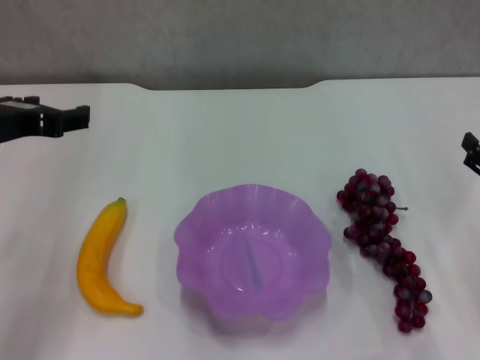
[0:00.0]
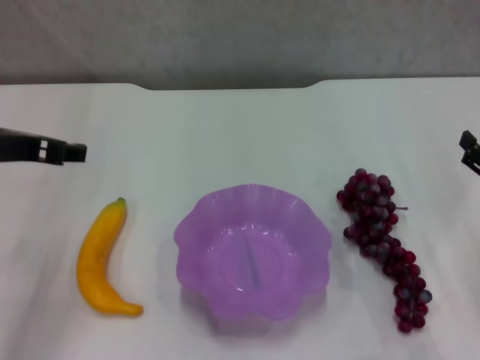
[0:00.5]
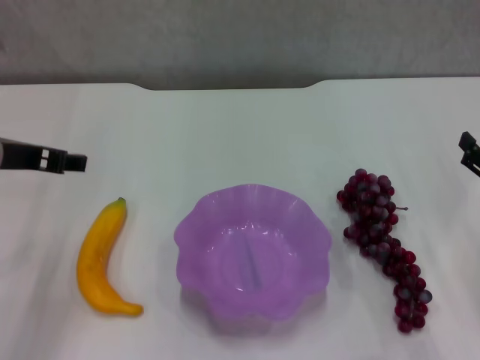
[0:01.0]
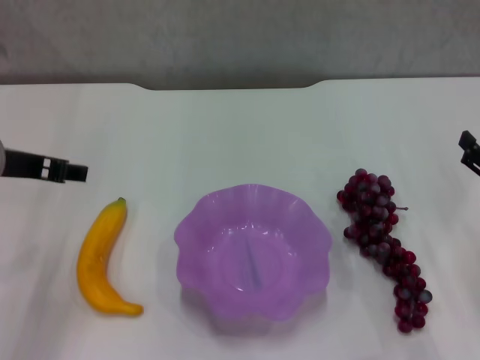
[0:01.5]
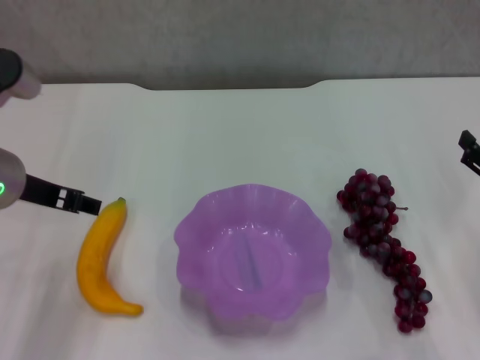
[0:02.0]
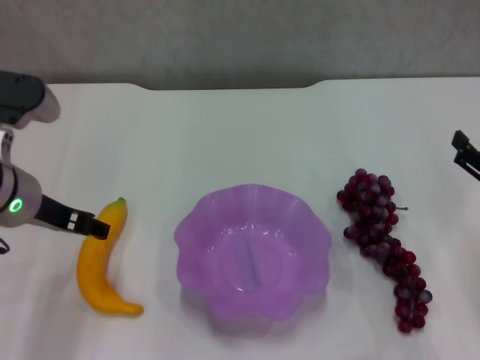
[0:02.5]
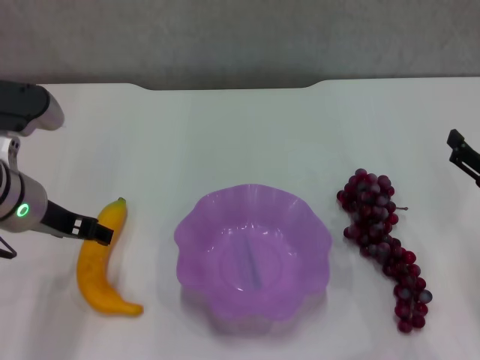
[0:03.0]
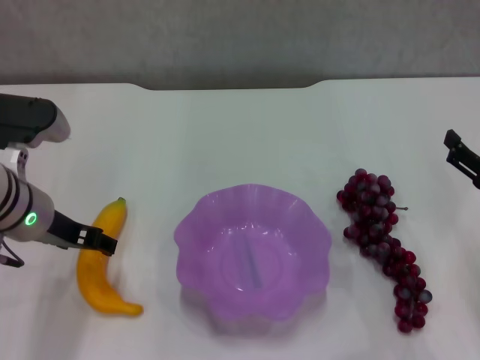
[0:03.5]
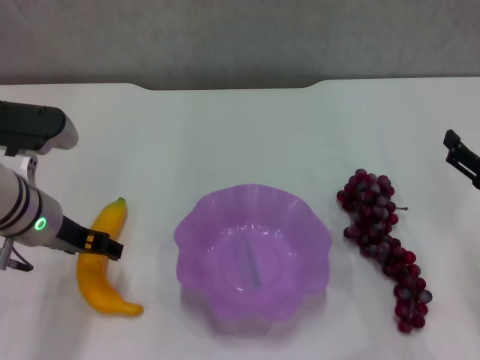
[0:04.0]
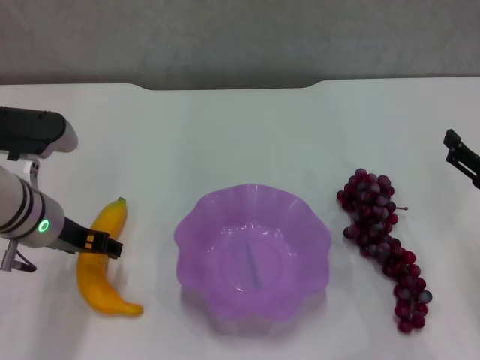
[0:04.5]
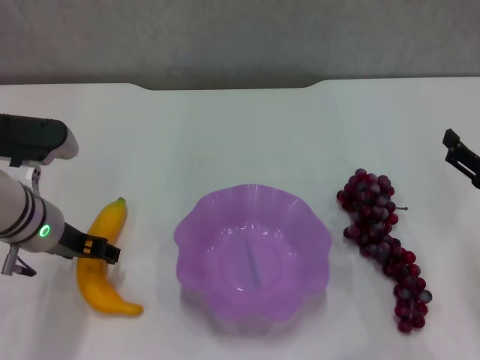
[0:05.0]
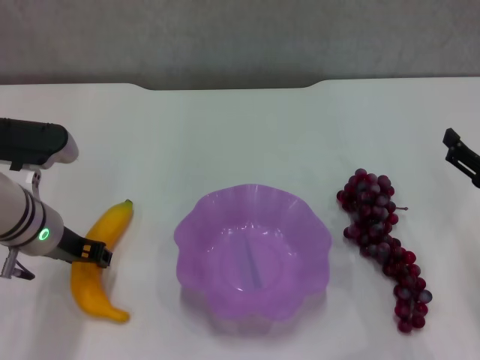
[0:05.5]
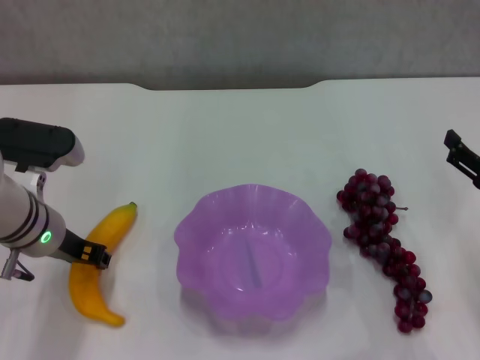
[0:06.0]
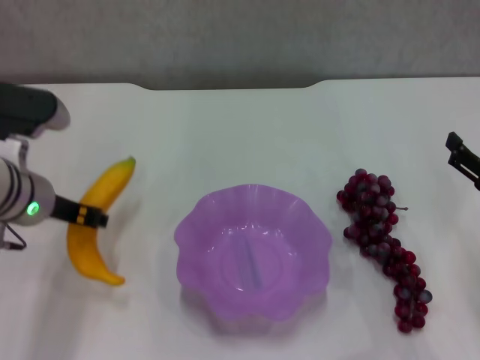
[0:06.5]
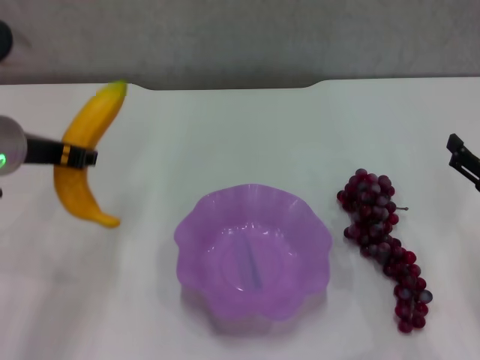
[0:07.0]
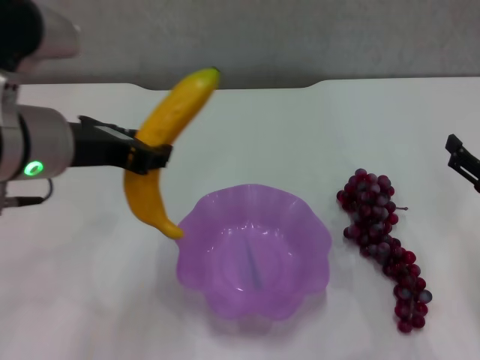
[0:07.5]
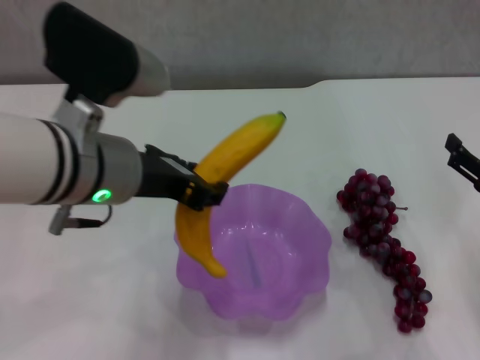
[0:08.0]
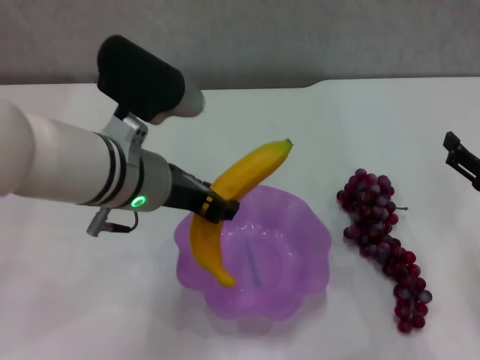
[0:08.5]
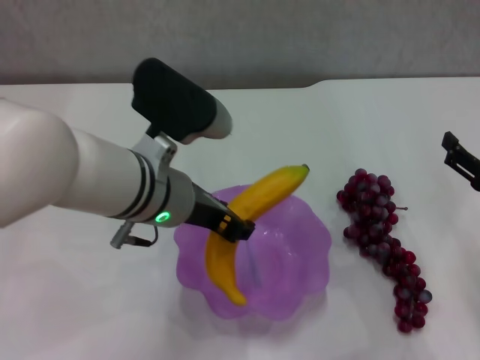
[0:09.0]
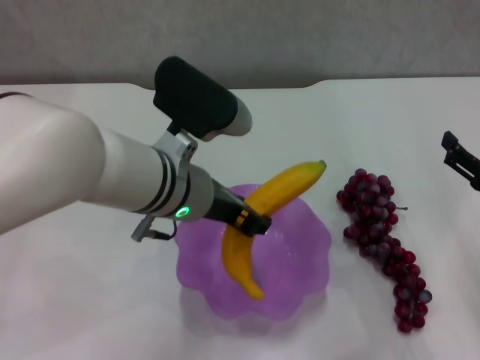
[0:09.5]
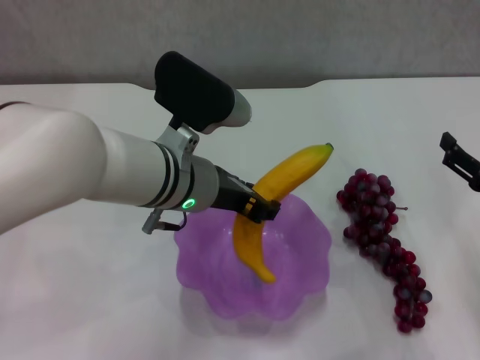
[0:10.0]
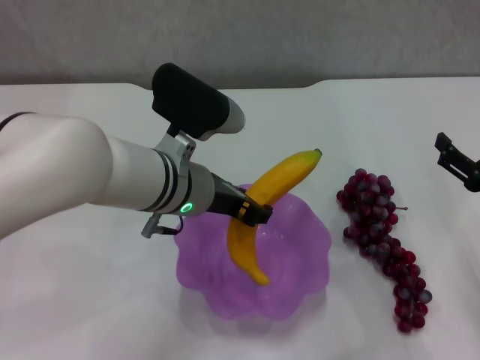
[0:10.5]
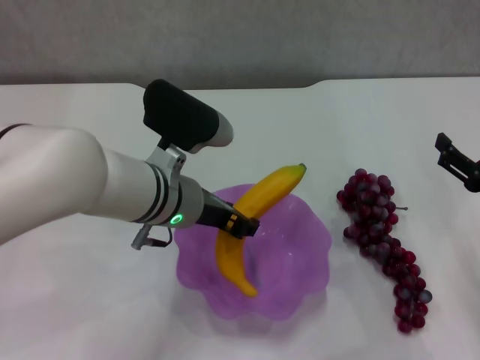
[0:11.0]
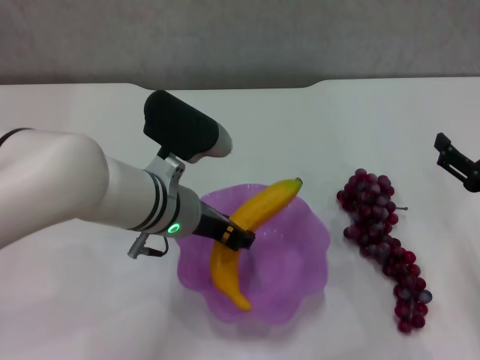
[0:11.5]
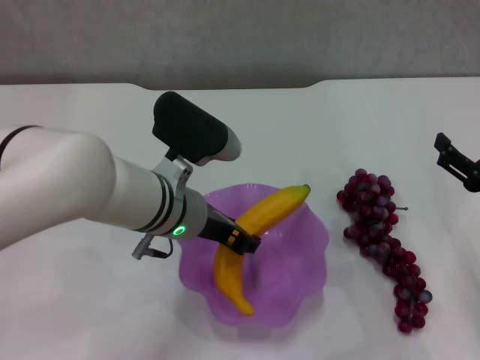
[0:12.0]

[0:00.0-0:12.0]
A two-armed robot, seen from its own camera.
Step, 0:00.0 to 0:05.5: Grasp the banana with left gripper.
0:02.0 to 0:04.0: The left gripper moves downward, about 5 cm.
0:04.0 to 0:06.0: The left gripper closes up.
0:06.0 to 0:08.0: The left gripper shifts about 15 cm upward, to the right and backward.
0:08.0 to 0:10.0: The left gripper moves downward, to the right and forward, about 10 cm.
0:10.0 to 0:12.0: The grippers move only a little.

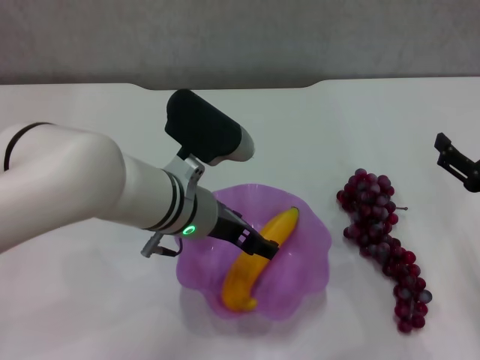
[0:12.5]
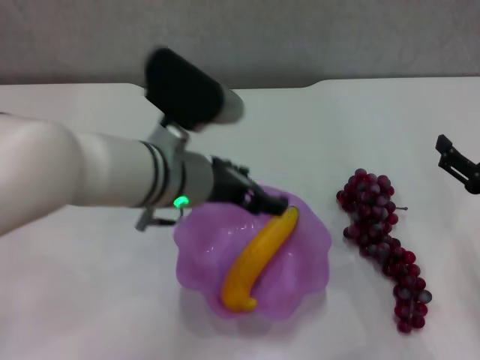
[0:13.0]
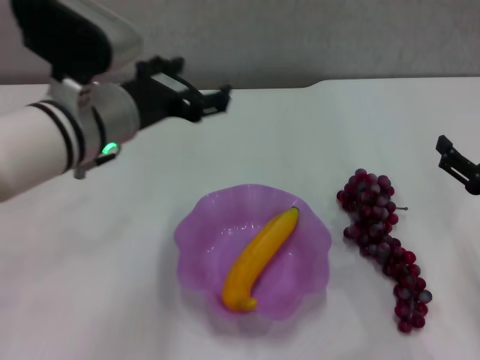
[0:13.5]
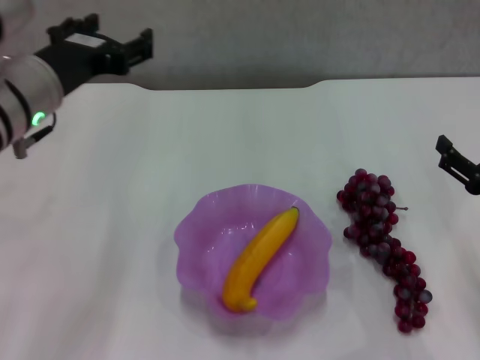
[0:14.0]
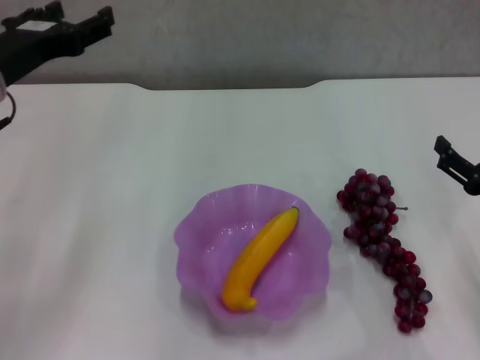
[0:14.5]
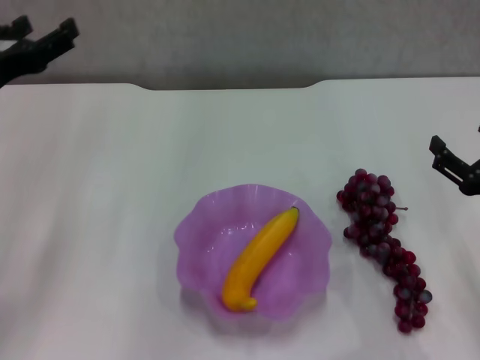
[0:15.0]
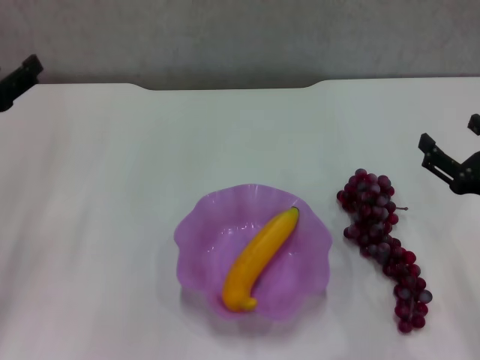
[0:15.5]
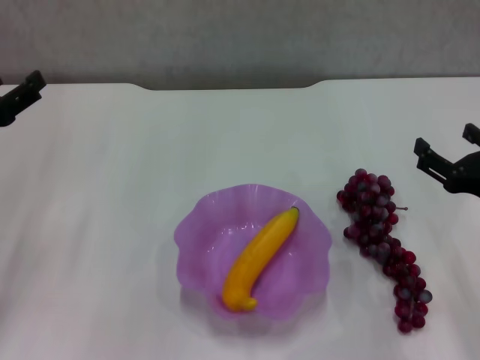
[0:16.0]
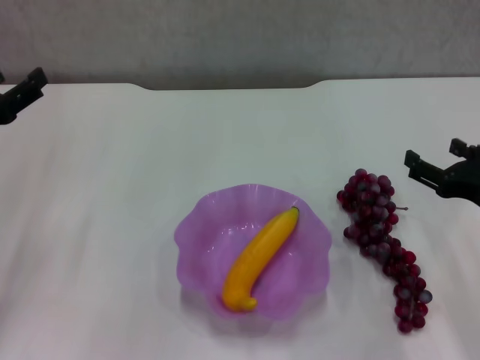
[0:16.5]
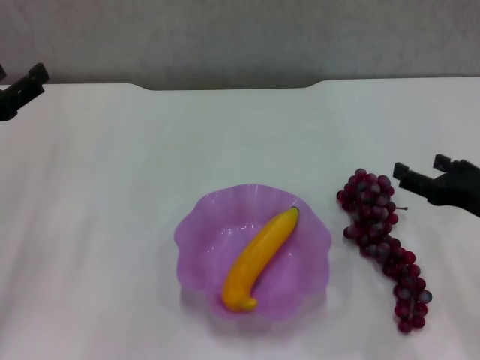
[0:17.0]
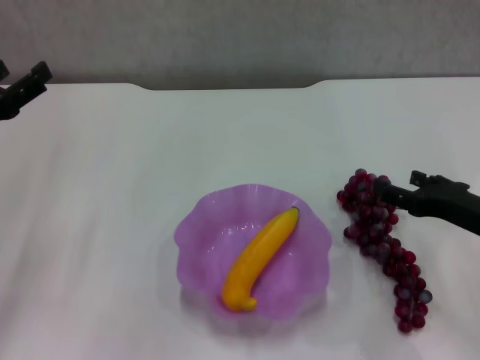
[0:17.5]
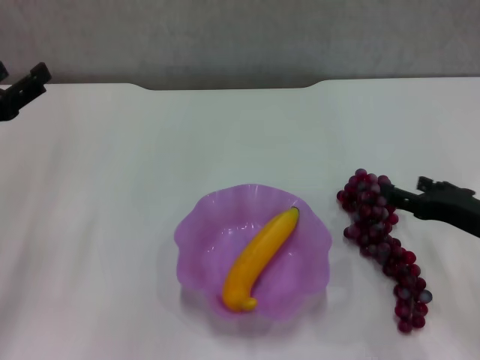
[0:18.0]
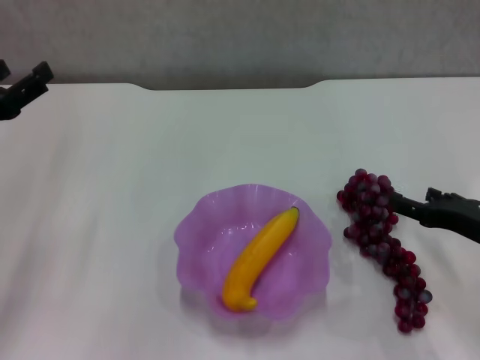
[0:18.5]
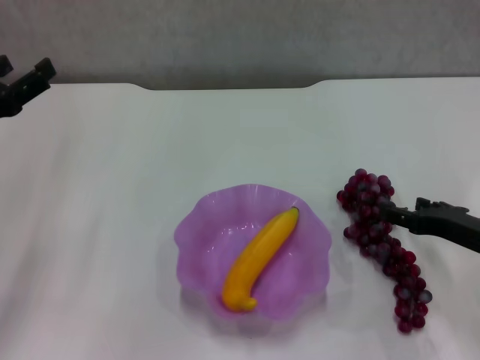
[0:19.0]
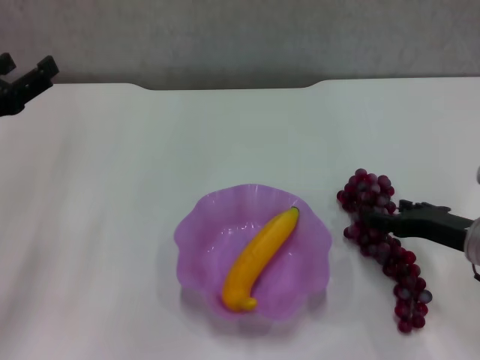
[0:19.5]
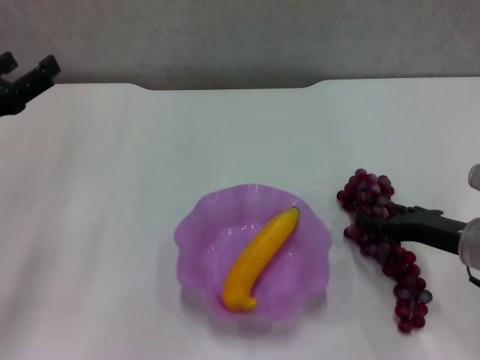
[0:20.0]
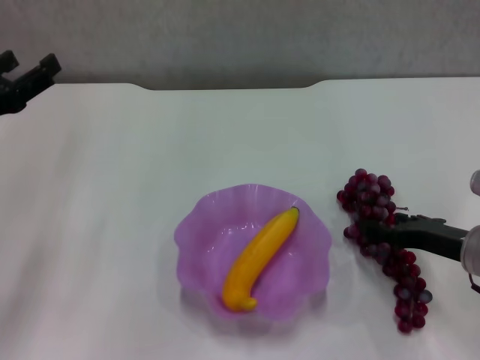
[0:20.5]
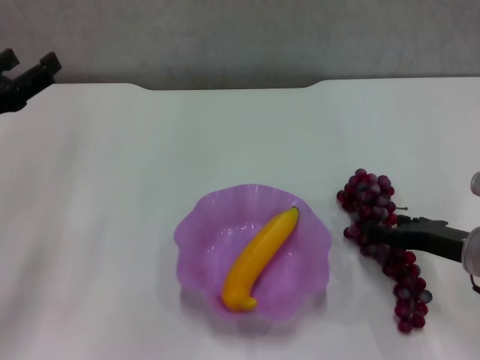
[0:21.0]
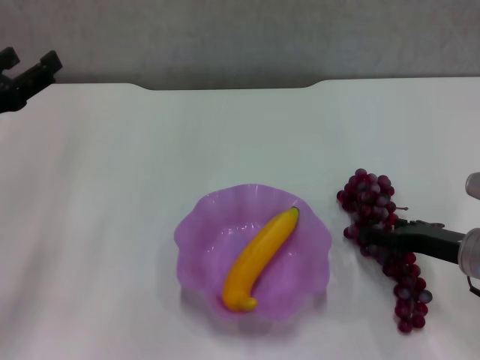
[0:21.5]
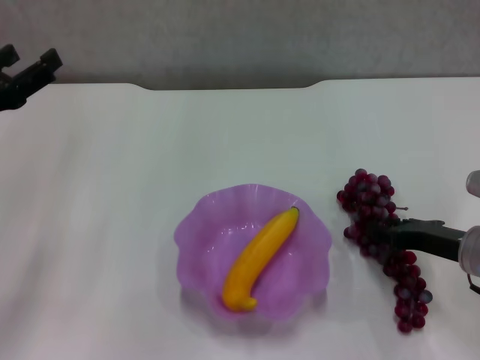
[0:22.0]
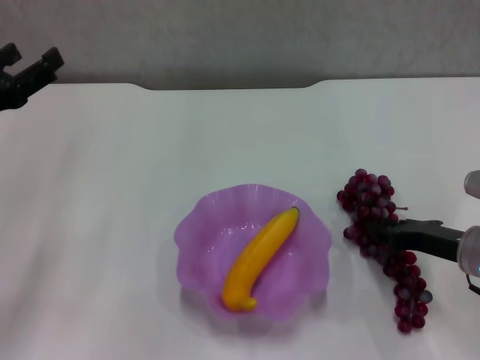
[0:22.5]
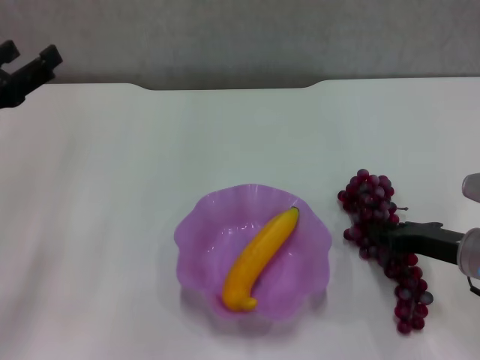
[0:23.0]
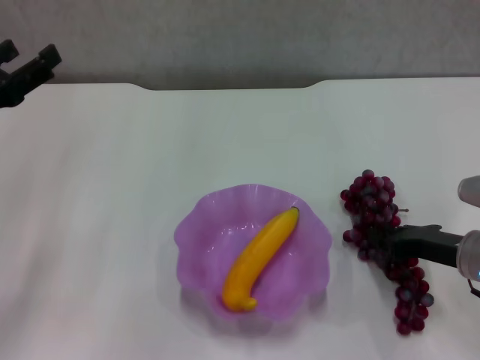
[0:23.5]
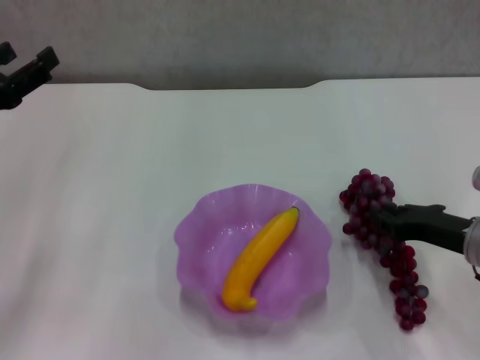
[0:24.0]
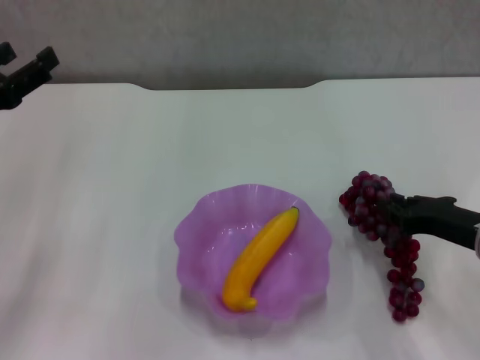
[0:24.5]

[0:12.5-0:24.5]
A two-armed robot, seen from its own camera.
Step, 0:12.5 to 0:22.5: Grasp the grape with right gripper.
0:12.5 to 0:14.5: The left gripper goes some 20 cm to the left and upward.
0:14.5 to 0:16.5: The left gripper shifts some 10 cm to the left and downward.
0:16.5 to 0:18.5: There are only small adjustments of the grippers.
0:18.5 to 0:20.5: There are only small adjustments of the grippers.
0:20.5 to 0:22.5: The right gripper closes up.
0:22.5 to 0:24.5: There are only small adjustments of the grippers.

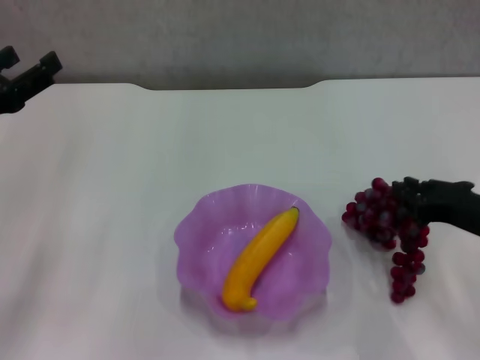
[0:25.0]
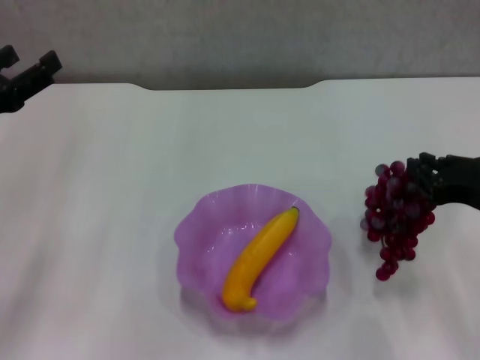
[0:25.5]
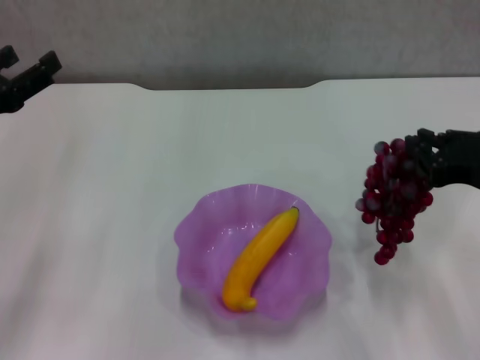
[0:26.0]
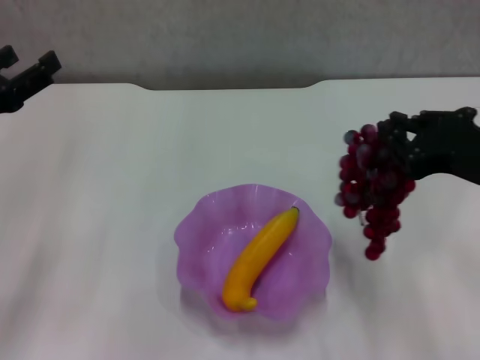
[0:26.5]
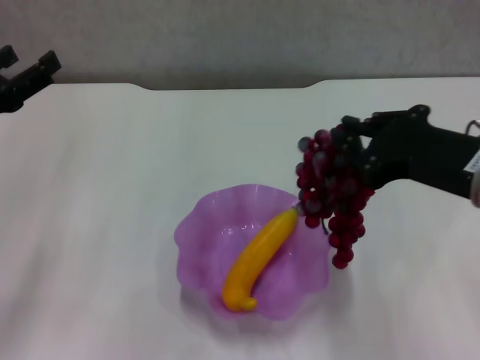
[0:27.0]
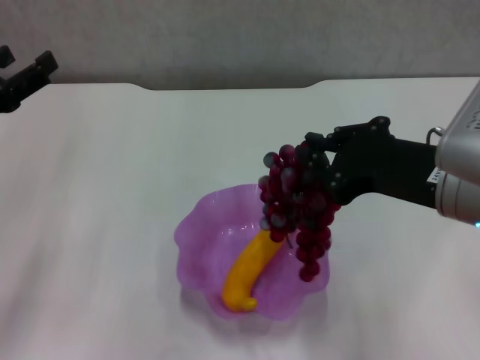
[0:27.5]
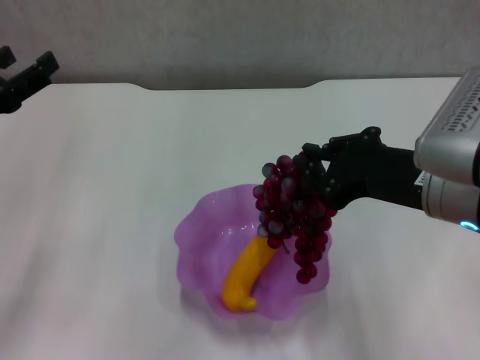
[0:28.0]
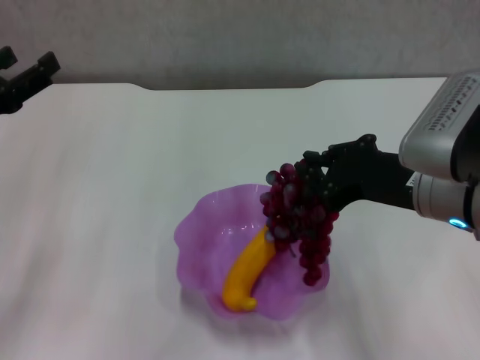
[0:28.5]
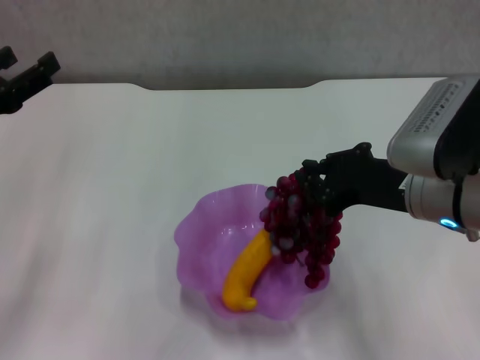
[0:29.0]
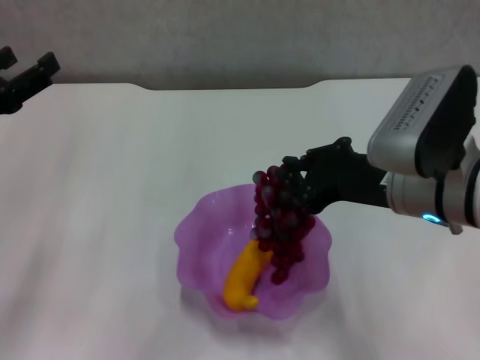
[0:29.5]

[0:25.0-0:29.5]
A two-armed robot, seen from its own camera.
0:25.0 to 0:27.0: The right gripper goes about 15 cm upward and to the left.
0:27.0 to 0:29.5: The right gripper shifts by some 5 cm.
